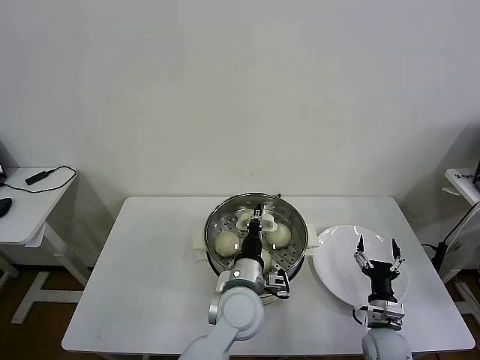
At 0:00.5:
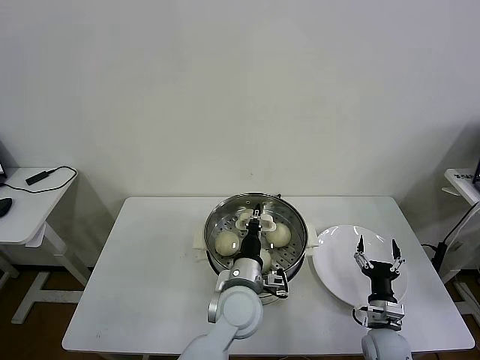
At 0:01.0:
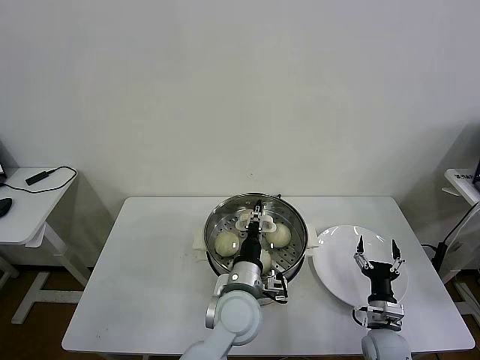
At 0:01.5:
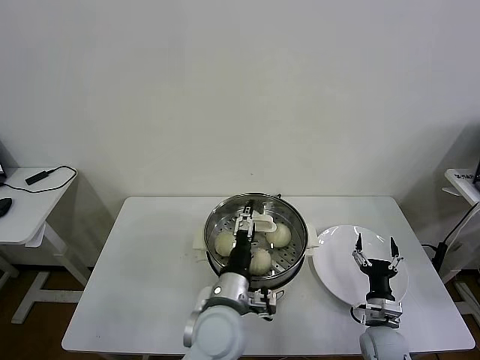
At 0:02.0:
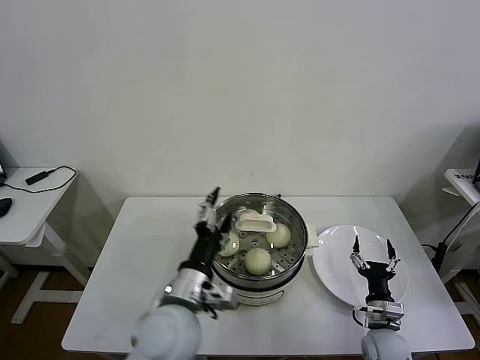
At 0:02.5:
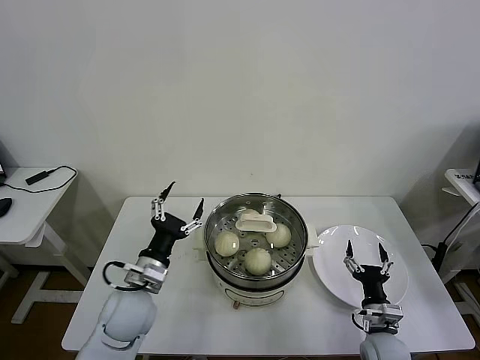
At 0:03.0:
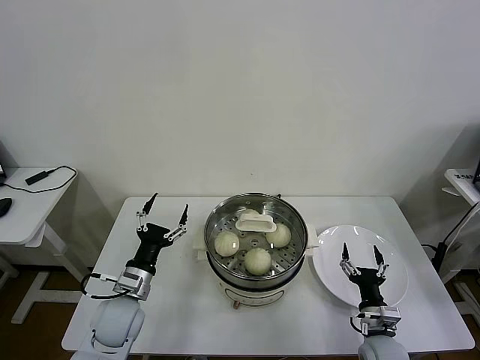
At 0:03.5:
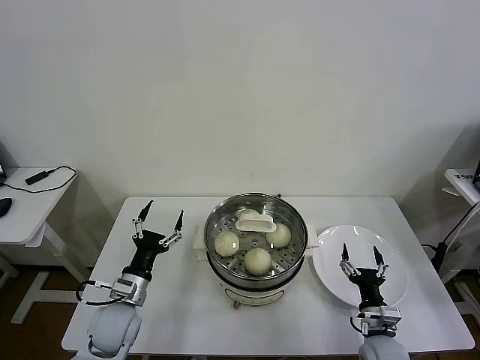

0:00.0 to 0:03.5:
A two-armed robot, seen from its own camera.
Task of the whole recording: take steamed baozi put them in steamer then cover it.
0:00.0 to 0:02.0: The left gripper heads to the left, backward and upward, covering approximately 15 cm, and opens up.
0:02.0 to 0:03.5: The left gripper heads to the left and downward, covering some 20 cm.
